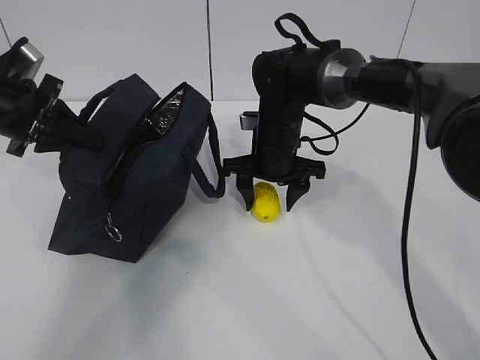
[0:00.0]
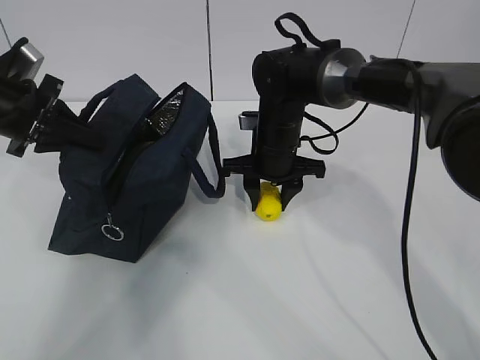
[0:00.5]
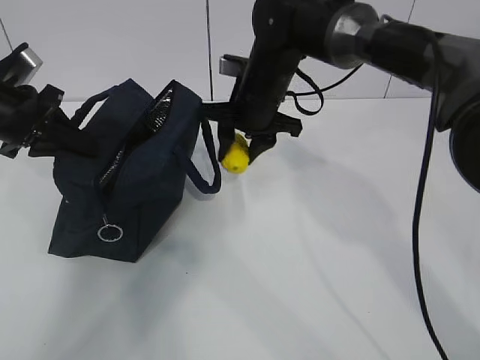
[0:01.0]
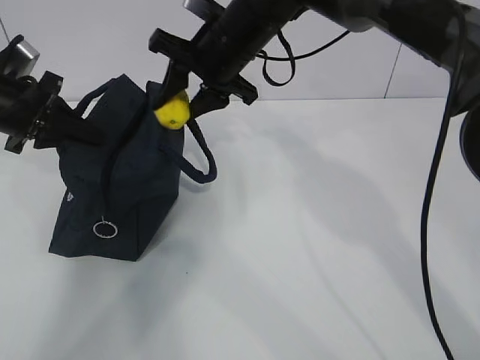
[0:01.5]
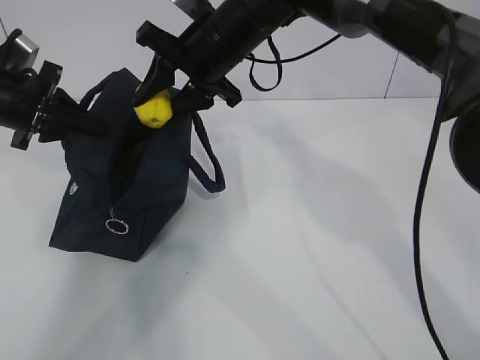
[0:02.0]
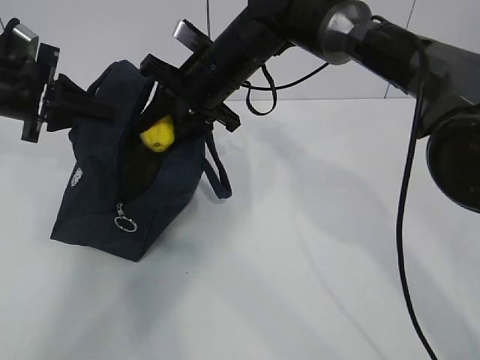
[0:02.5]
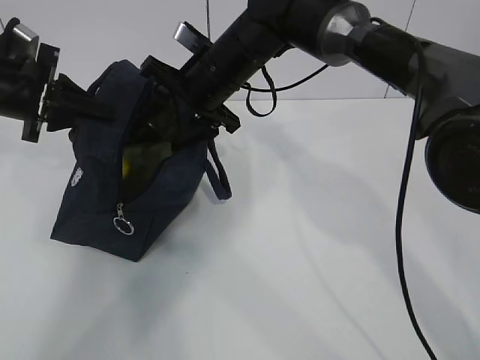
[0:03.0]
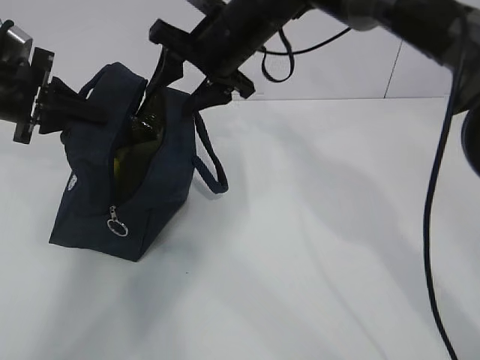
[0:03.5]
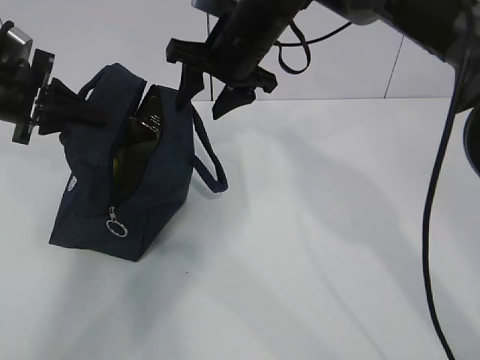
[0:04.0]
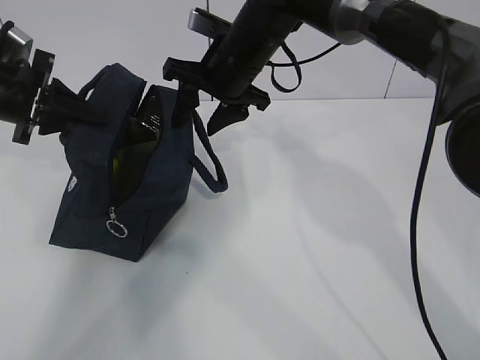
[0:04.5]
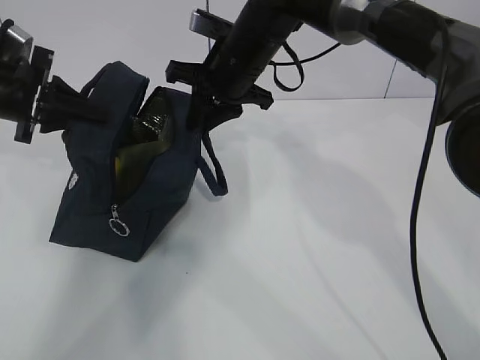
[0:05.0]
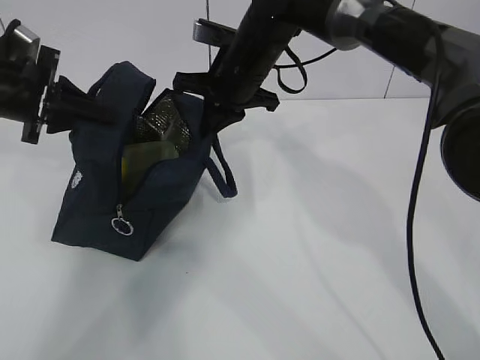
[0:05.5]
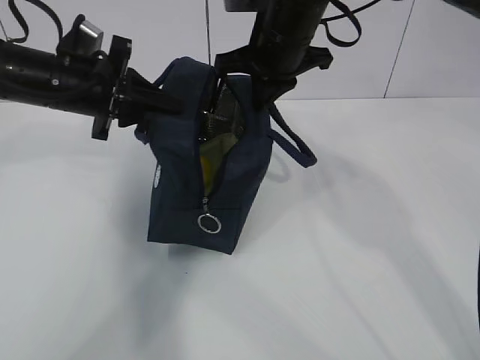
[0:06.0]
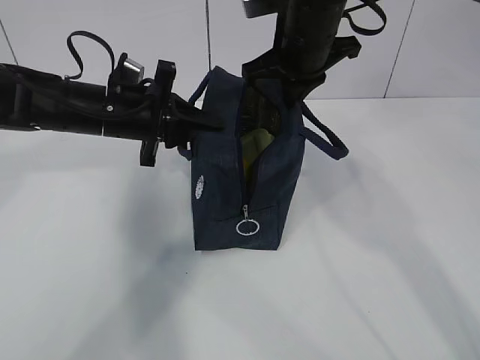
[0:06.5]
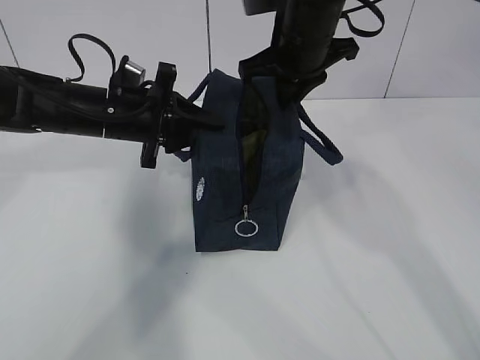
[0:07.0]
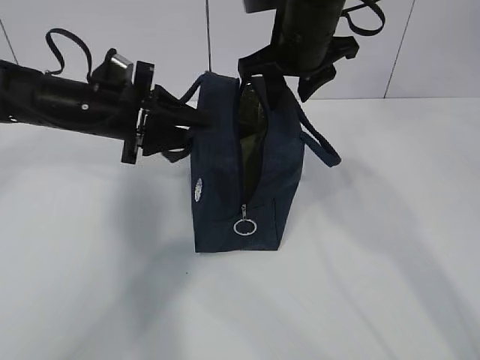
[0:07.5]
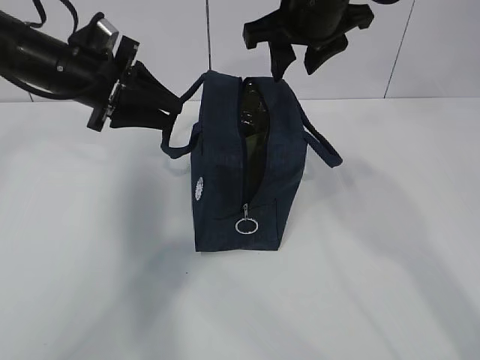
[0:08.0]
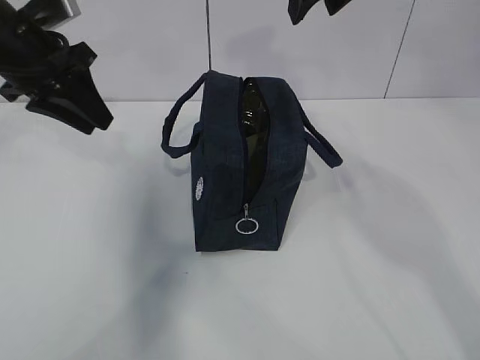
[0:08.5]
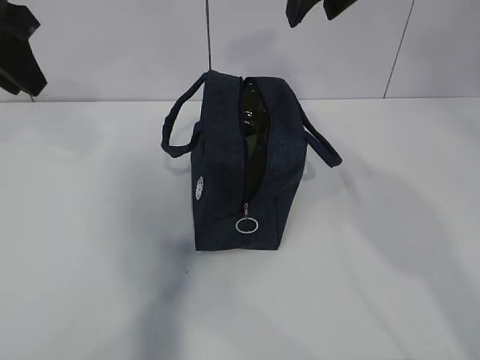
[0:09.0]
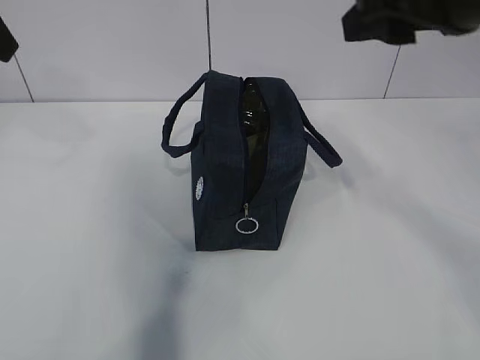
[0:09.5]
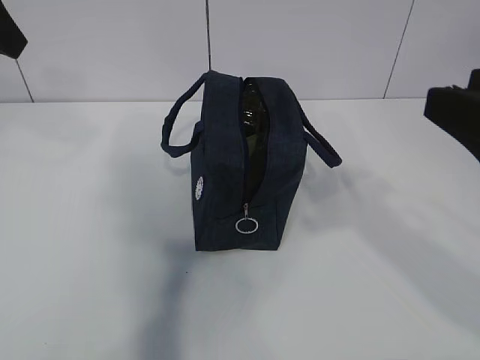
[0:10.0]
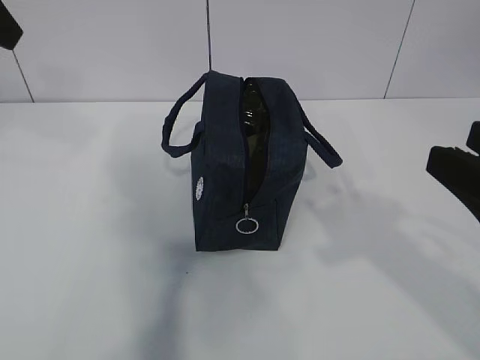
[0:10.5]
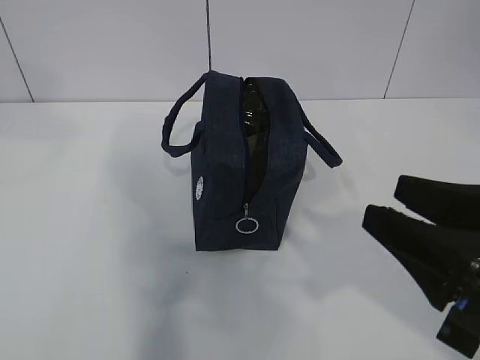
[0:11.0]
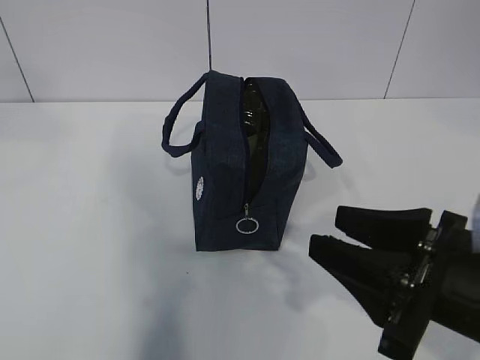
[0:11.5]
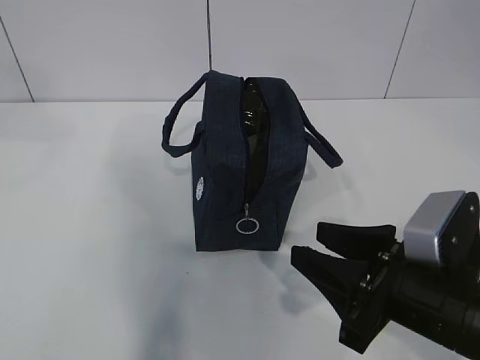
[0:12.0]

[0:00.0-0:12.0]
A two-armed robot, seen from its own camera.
Step, 0.0 to 1.0 s: Move the lunch bag to the right.
0.0 to 2.0 s: The right gripper is displaced upward and to the left by about 15 cm, and closes its fingers.
2.0 to 4.0 s: There are only small adjustments of the grippers.
4.0 to 6.0 s: The left gripper heads to the right, covering approximately 10 cm. Meanwhile the right gripper closes its fingers.
6.0 to 8.0 s: The right gripper ends up approximately 5 cm from where it was, and opens; the left gripper opens its fingers.
8.0 to 10.0 s: The right gripper moves backward and to the right, some 30 cm; the left gripper shifts some 20 cm upward and backward.
10.0 to 12.0 s: The right gripper goes roughly 15 cm downward. Meanwhile the left gripper travels backward and upward by about 10 cm.

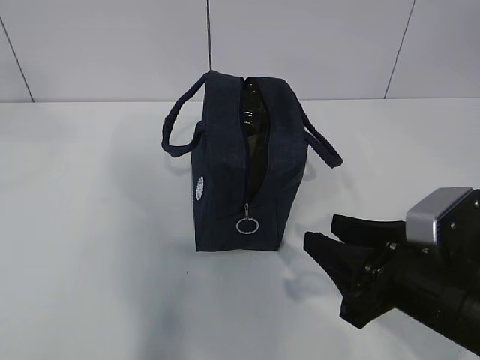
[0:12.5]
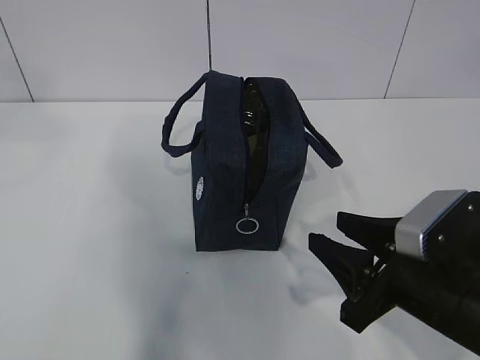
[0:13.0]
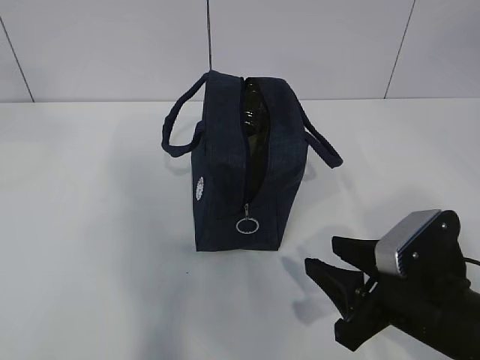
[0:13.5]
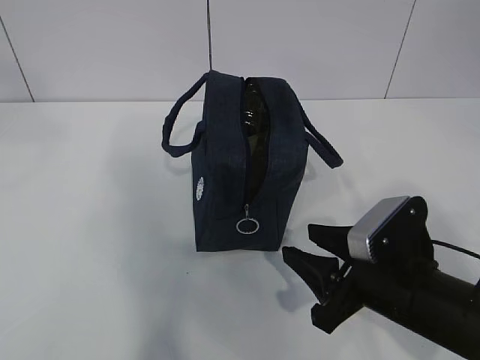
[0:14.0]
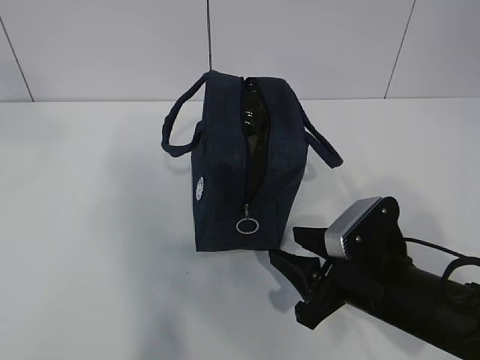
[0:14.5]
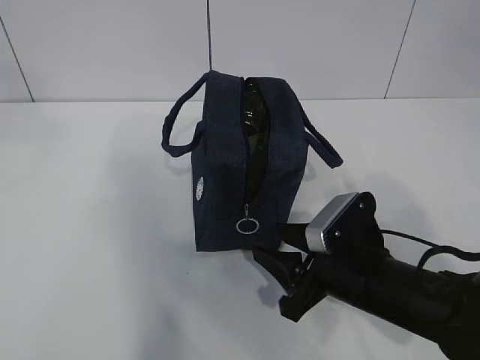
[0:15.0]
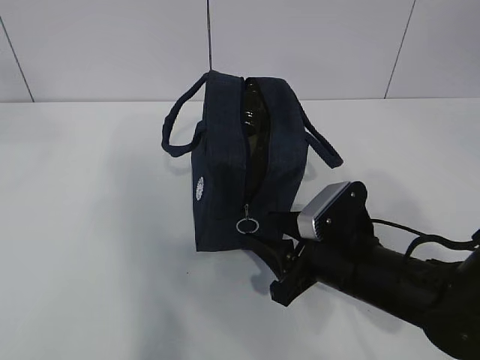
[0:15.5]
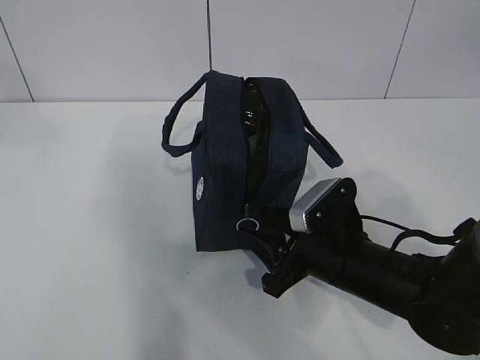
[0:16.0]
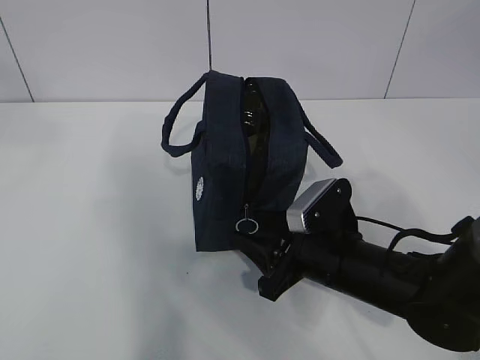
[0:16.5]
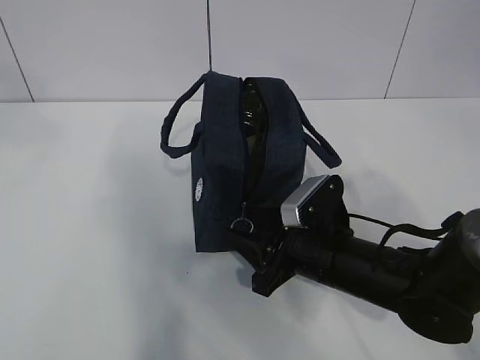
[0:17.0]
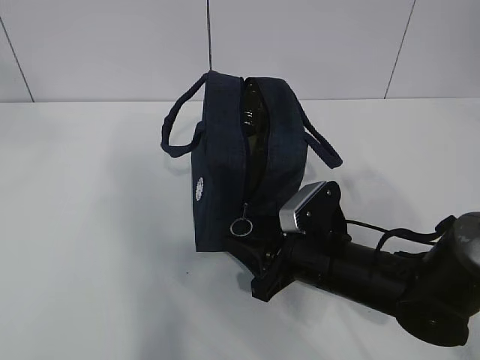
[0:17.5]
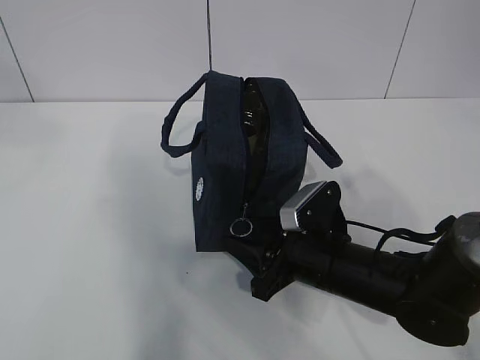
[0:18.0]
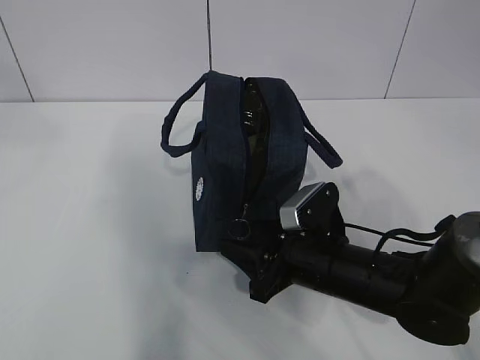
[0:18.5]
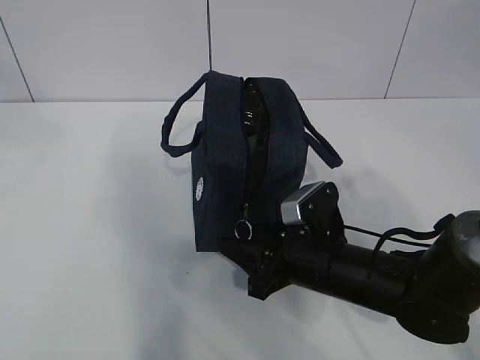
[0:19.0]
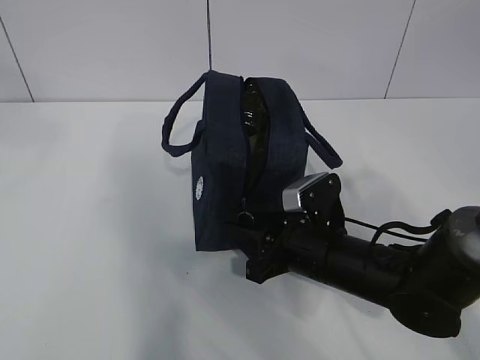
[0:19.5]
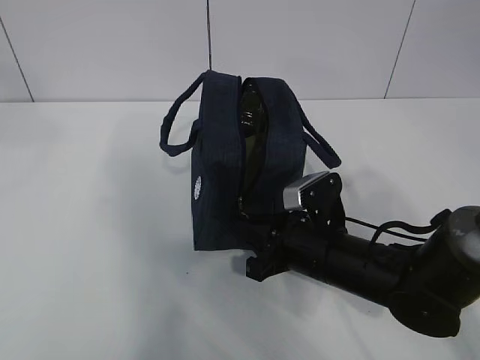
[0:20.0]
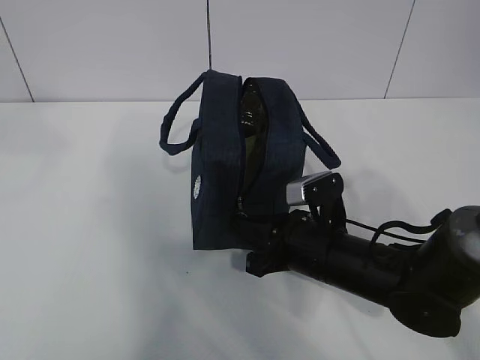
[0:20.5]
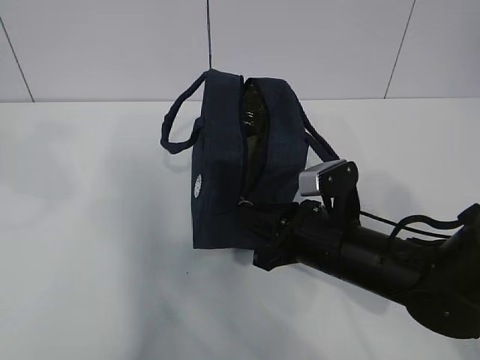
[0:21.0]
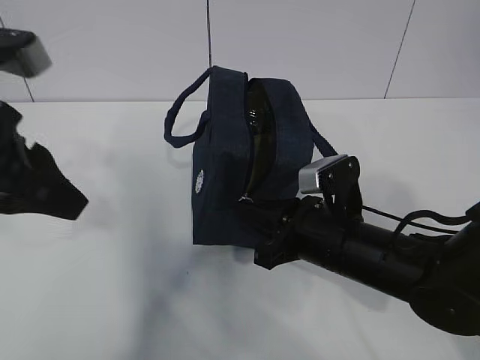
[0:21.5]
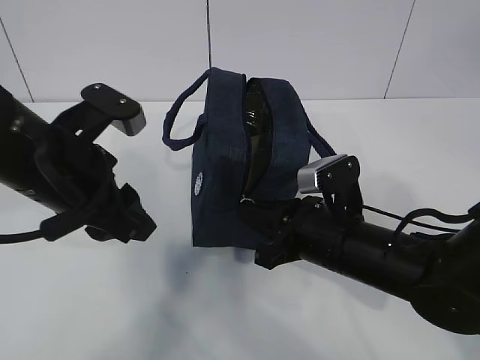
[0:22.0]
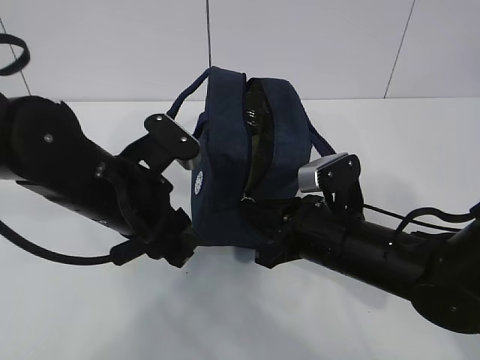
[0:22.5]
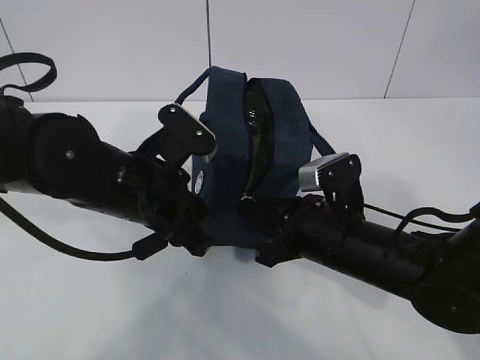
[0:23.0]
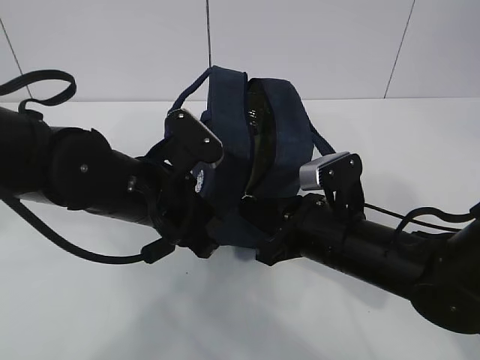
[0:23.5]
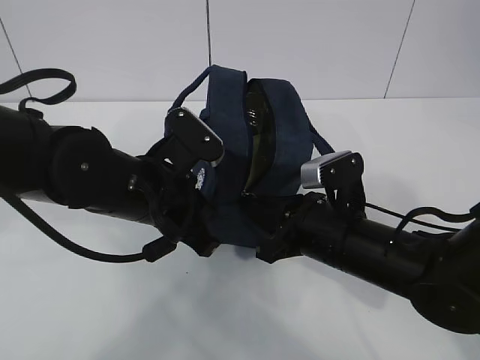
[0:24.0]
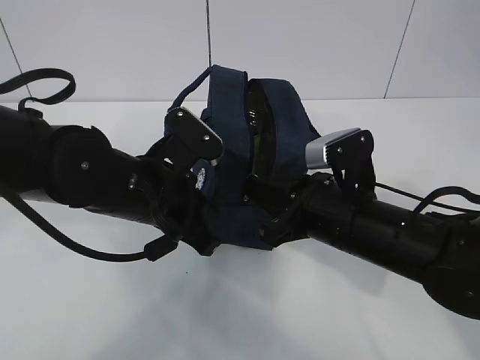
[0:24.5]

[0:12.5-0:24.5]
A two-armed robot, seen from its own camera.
12.5 to 14.5 s: The right gripper ends up roughly 5 cm from where it was.
14.5 to 16.5 s: The right gripper ends up roughly 5 cm from where it was.
16.5 to 18.5 s: The grippers make only small movements.
18.5 to 20.5 s: The right gripper closes its fingers.
20.5 to 22.5 s: The left gripper travels downward and to the right by roughly 30 cm, and opens up.
22.5 to 24.5 s: The left gripper closes up.

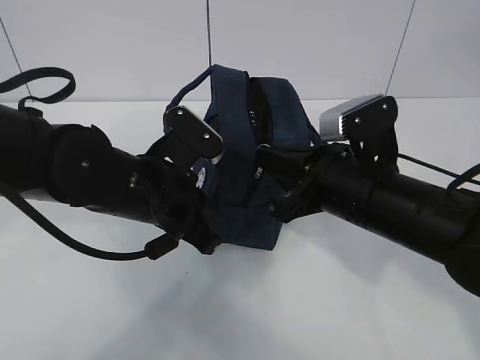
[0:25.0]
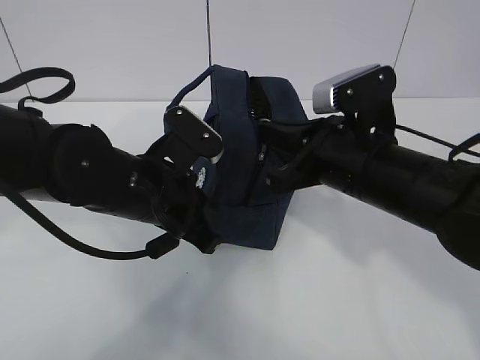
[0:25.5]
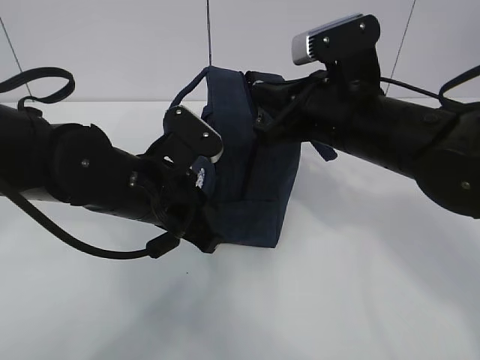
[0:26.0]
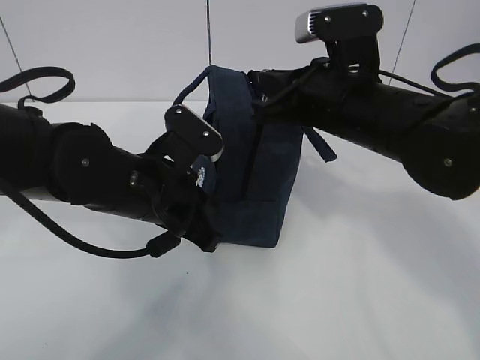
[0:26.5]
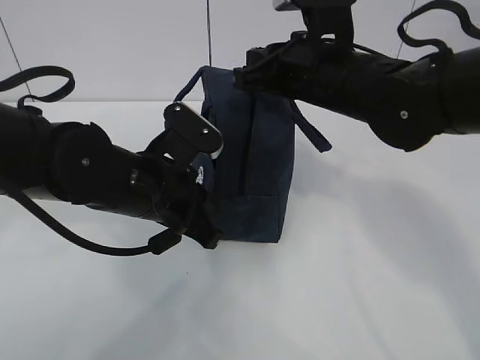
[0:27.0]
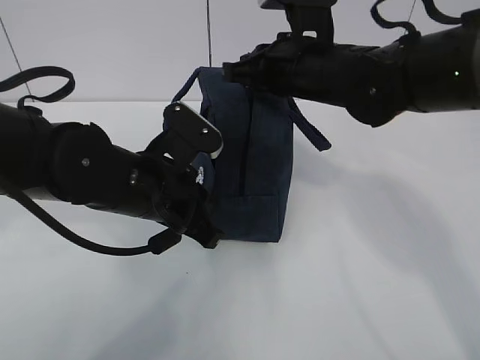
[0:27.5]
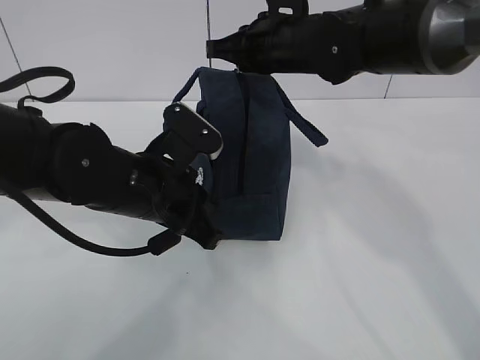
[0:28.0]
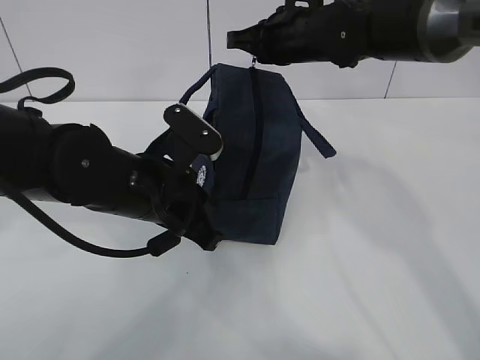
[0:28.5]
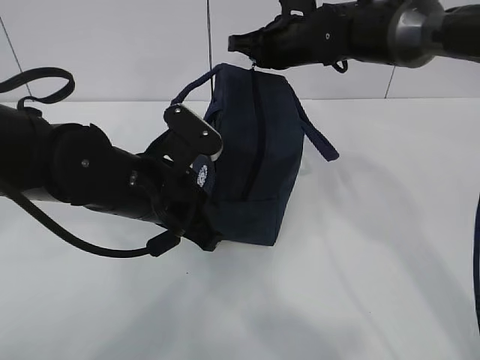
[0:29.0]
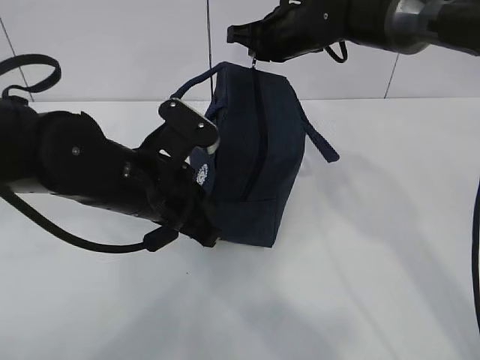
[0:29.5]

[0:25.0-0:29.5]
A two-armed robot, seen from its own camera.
25.0 to 27.0 s: The right gripper is displaced forward and upward by approximately 10 cm.
27.0 to 29.5 s: The right gripper shifts roughly 15 cm forward.
